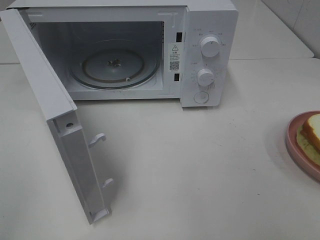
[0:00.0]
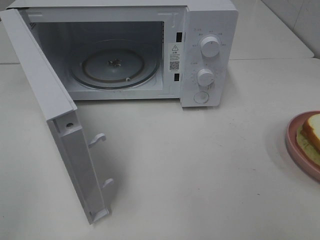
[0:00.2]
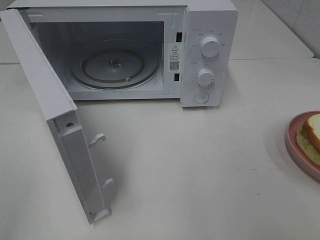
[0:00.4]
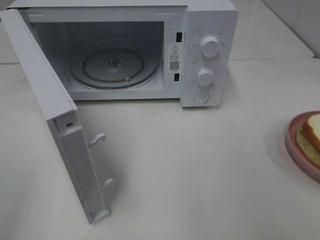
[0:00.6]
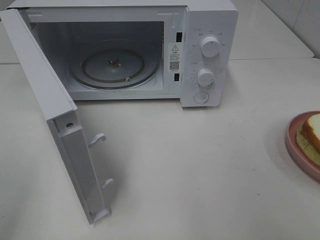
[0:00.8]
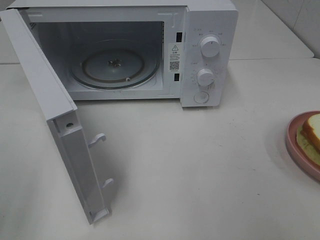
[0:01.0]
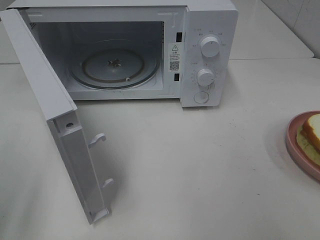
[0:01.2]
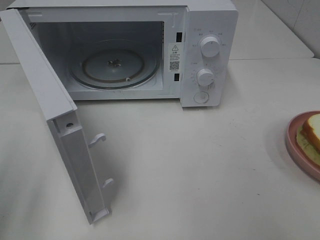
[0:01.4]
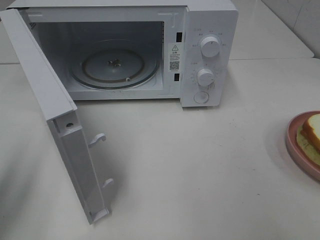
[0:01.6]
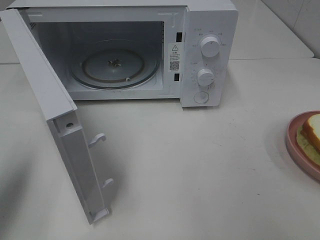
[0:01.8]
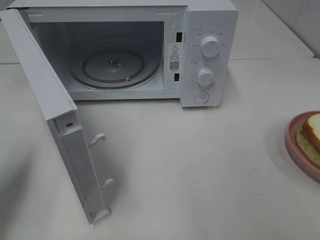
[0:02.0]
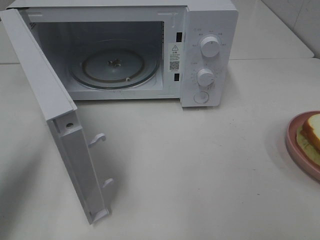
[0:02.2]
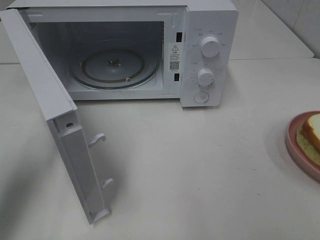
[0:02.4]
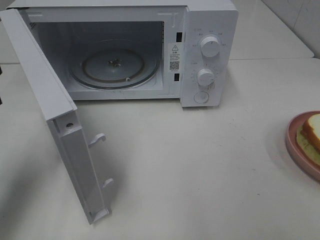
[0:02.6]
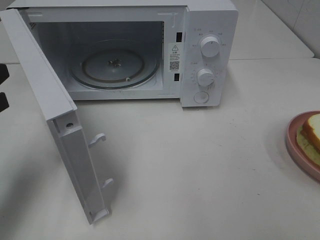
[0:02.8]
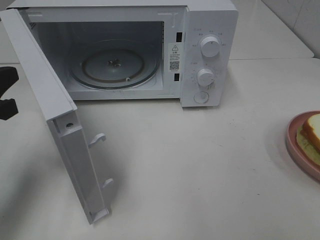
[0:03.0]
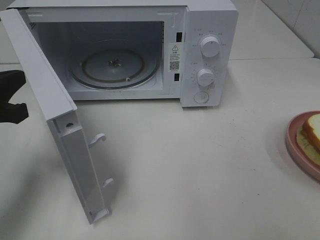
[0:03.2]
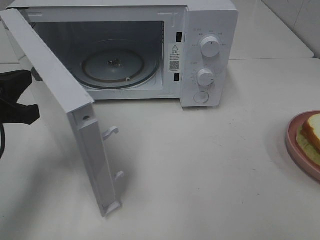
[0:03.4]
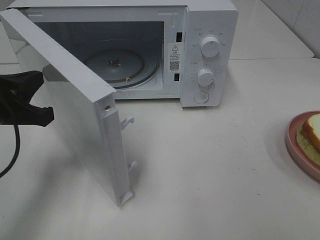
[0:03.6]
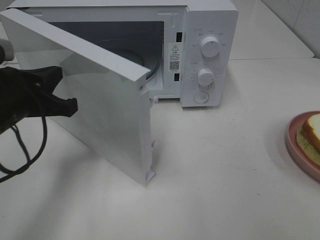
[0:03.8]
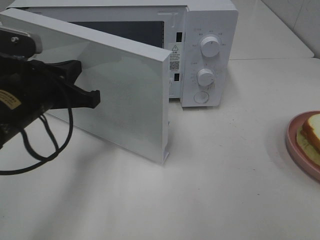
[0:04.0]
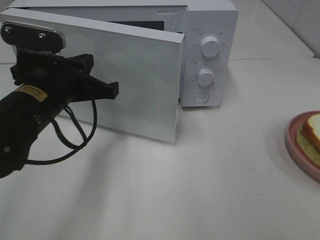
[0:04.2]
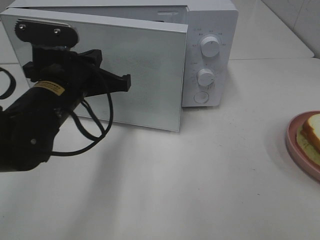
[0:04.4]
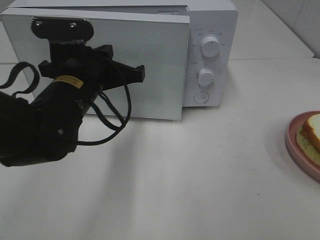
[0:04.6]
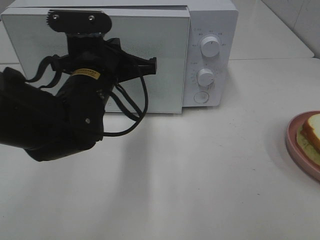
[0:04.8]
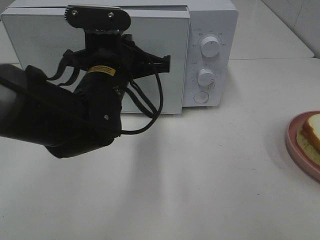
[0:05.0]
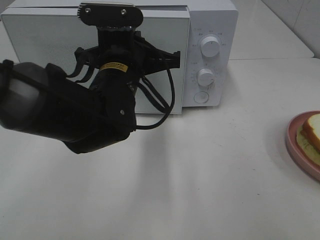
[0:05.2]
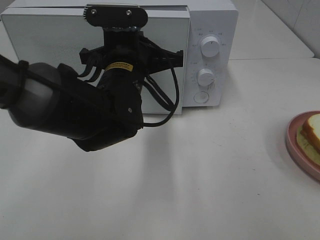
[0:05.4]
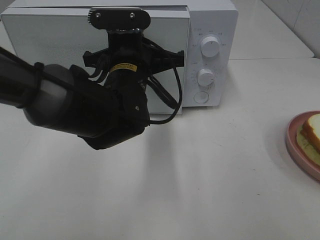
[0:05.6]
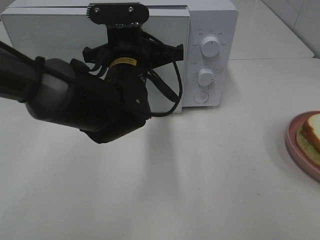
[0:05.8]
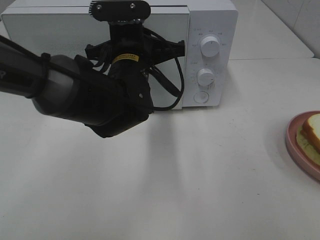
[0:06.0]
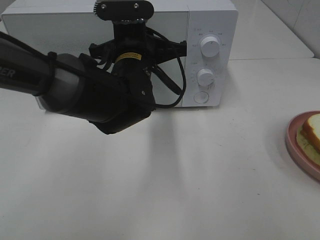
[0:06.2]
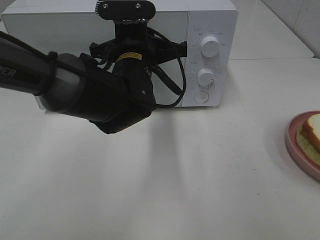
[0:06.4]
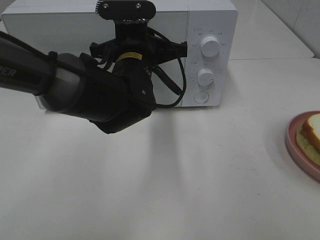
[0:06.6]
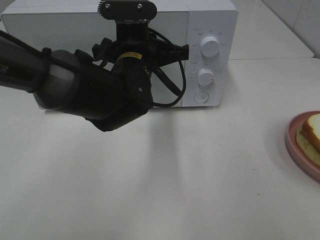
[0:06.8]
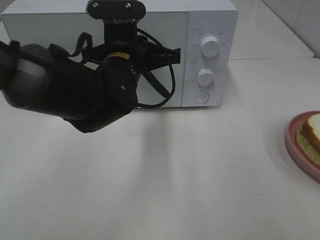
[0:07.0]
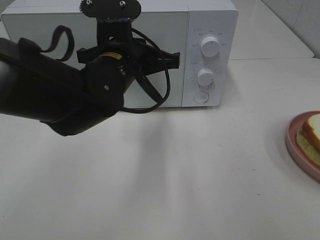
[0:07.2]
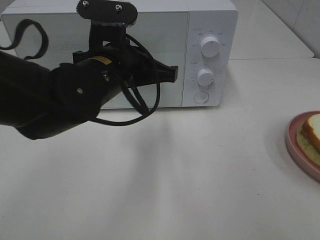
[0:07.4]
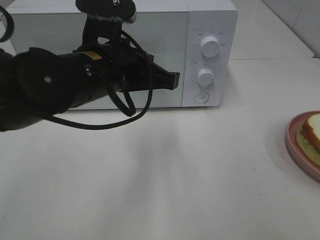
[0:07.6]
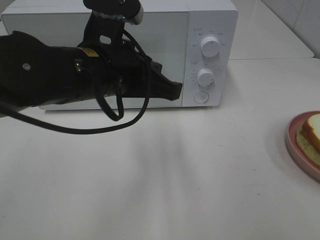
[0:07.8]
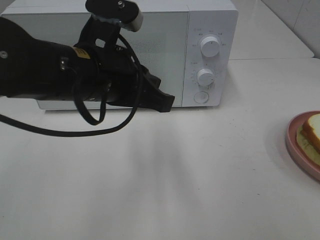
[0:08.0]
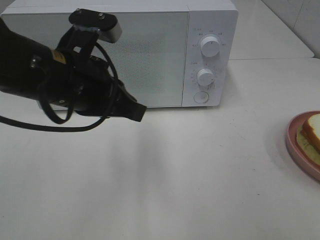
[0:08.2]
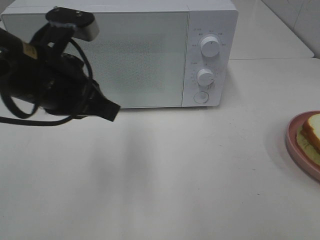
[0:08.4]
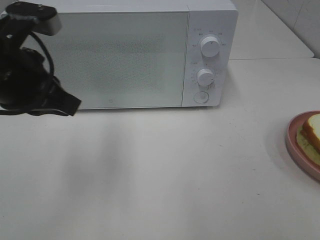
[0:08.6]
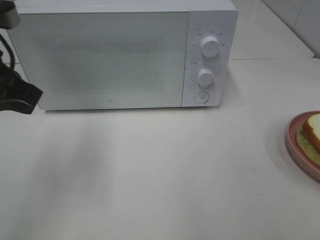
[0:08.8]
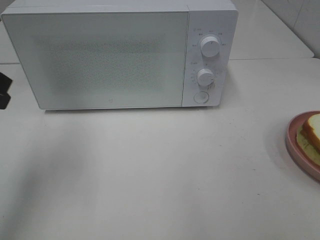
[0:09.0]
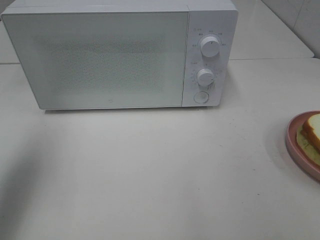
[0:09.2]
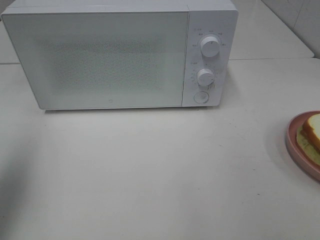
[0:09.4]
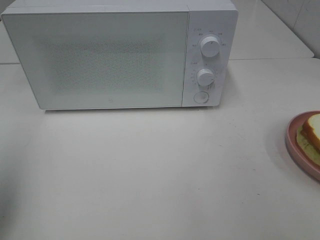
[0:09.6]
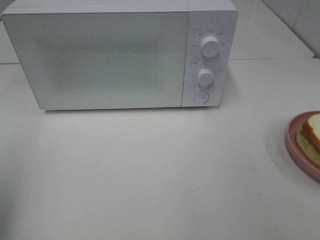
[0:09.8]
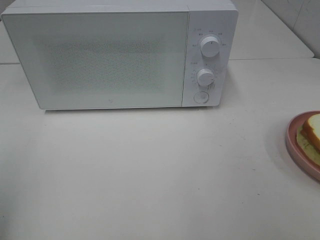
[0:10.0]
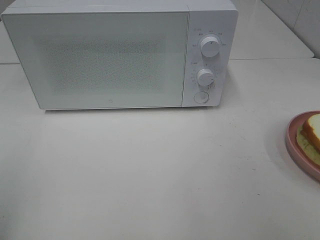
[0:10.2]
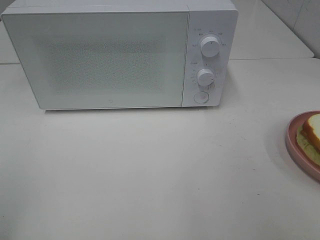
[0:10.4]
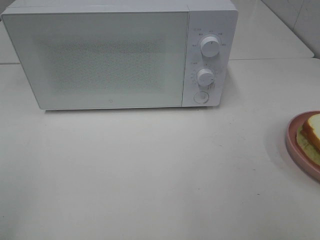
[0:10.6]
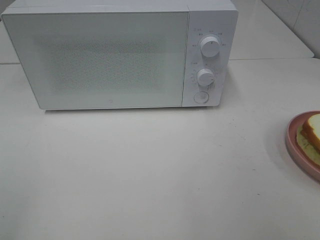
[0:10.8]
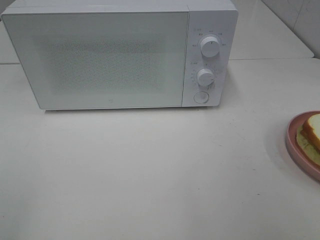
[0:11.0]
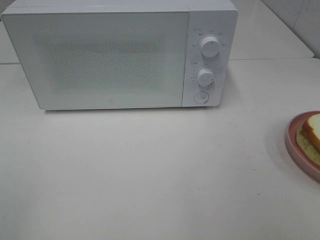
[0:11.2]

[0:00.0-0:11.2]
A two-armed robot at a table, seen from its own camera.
Task of the whole recording: Heat Sandwich.
Step, 0.0 to 7.8 s: Left hand: close the microwave door.
0.0 to 1.6 s: The left gripper travels forward by approximately 15 cm, and closes.
1.6 to 3.2 s: The left gripper travels forward, downward and to the right by some 15 cm, and closes.
3.2 to 4.8 s: The left gripper heads to the right, covering roughly 20 cm.
4.8 to 6.4 s: The left gripper shifts approximately 5 cm forward and to the right.
6.4 to 8.0 s: The left gripper heads backward and upward, covering approximately 10 cm.
8.0 to 9.6 s: The left gripper moves to the left, approximately 25 cm, and opens up.
9.6 to 11.2 s: The left gripper heads backward, covering some 15 cm.

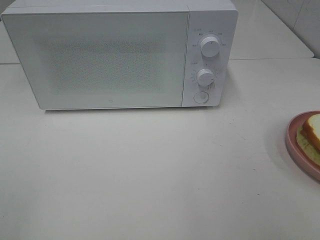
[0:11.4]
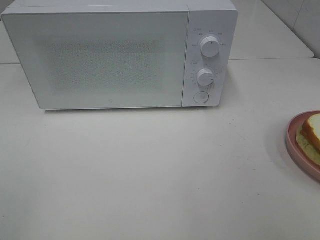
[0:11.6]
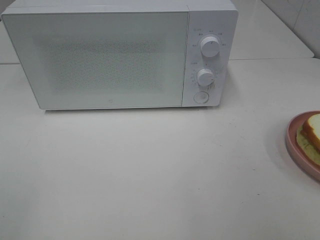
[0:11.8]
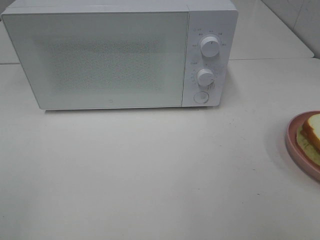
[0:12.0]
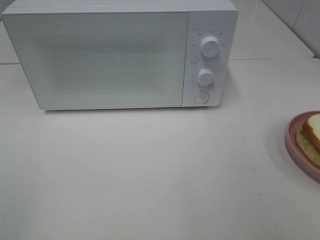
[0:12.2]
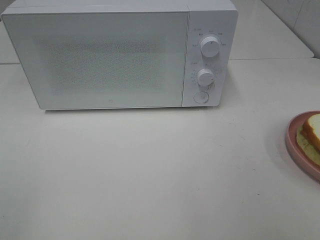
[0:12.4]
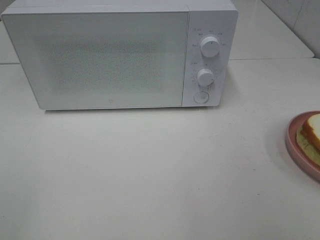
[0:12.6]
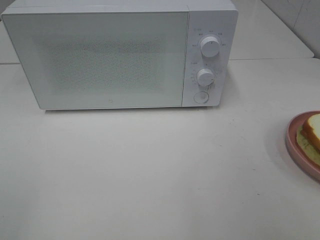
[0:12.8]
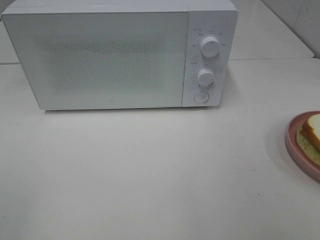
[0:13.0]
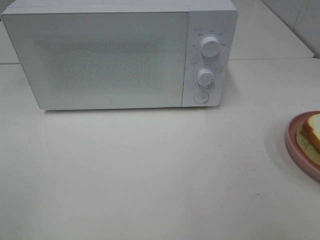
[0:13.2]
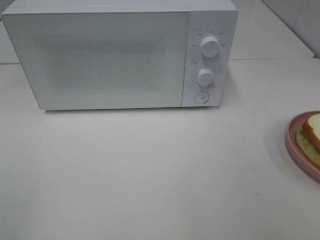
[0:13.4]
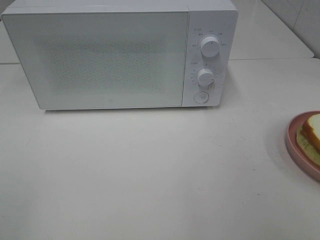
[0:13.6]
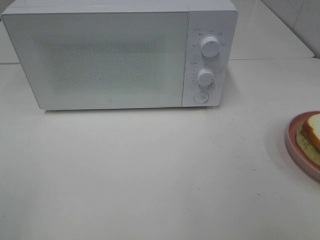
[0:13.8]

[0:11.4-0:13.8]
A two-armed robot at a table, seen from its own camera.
Task of the whole recording: Heat Sandwich.
11.4 to 13.8 s: Both grippers stay about where they are.

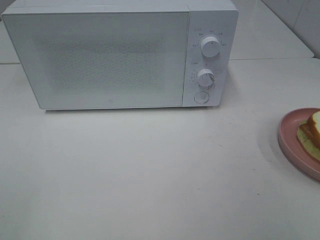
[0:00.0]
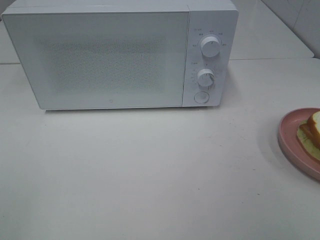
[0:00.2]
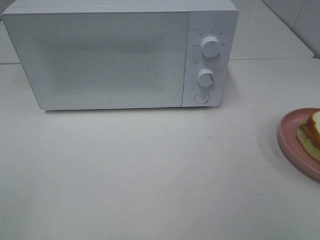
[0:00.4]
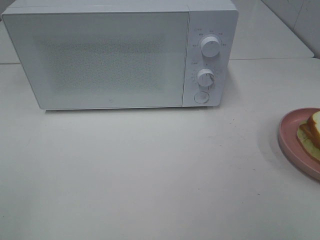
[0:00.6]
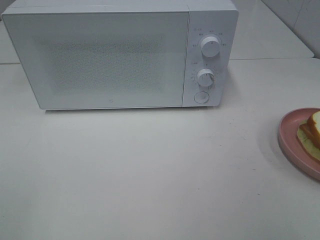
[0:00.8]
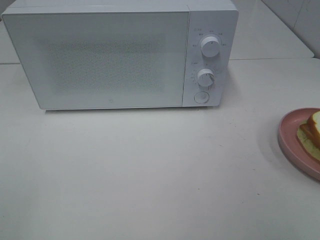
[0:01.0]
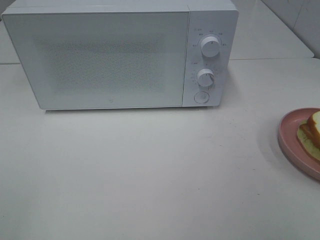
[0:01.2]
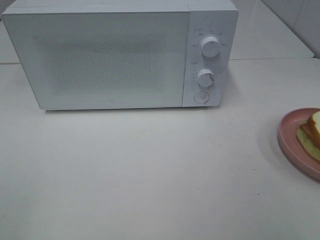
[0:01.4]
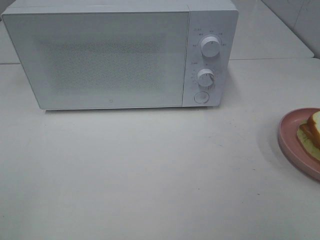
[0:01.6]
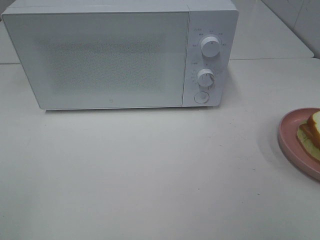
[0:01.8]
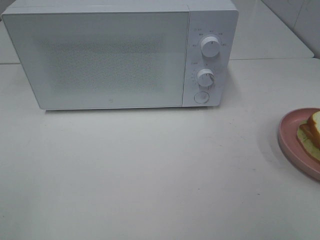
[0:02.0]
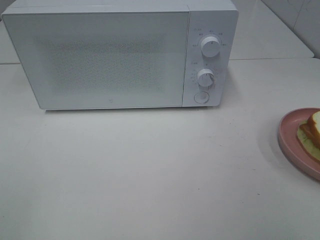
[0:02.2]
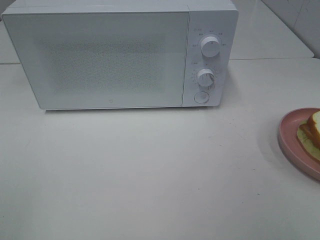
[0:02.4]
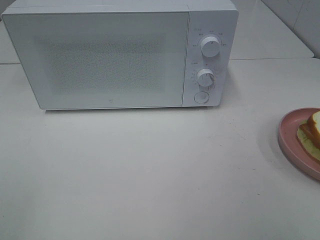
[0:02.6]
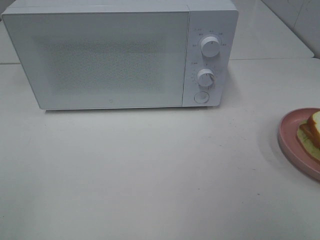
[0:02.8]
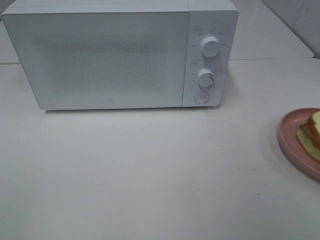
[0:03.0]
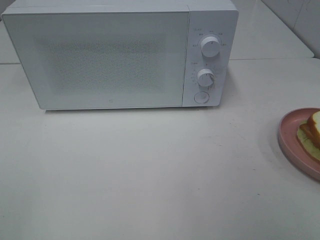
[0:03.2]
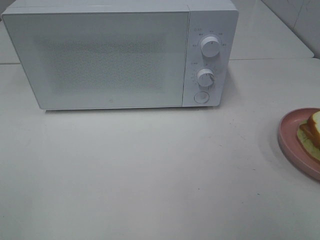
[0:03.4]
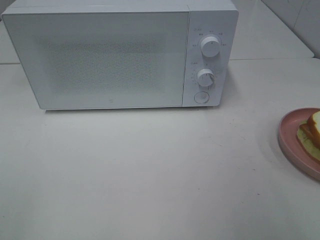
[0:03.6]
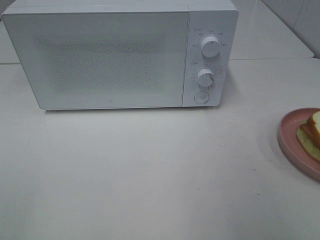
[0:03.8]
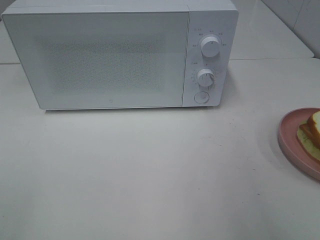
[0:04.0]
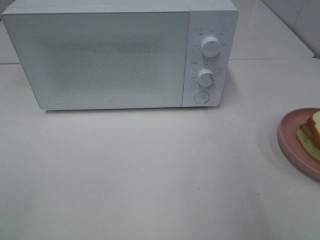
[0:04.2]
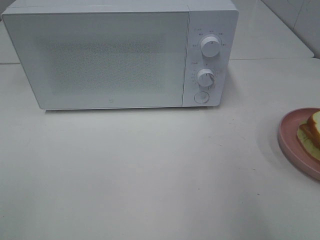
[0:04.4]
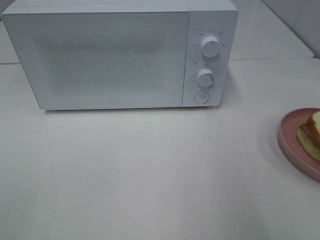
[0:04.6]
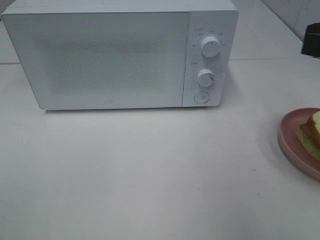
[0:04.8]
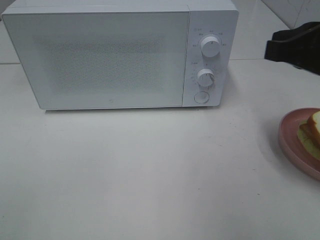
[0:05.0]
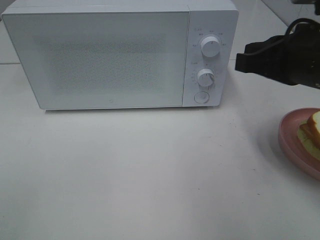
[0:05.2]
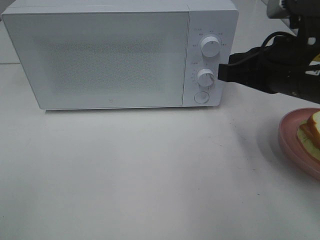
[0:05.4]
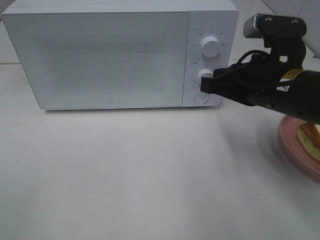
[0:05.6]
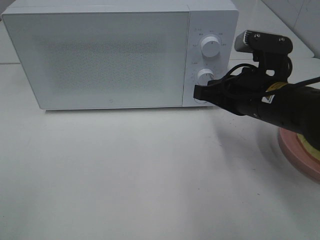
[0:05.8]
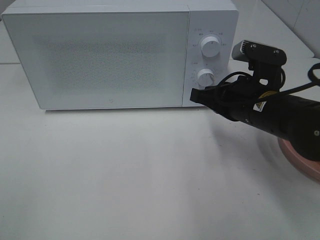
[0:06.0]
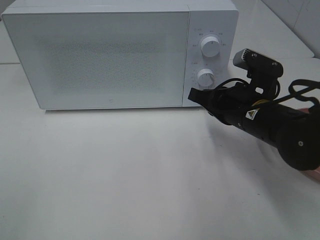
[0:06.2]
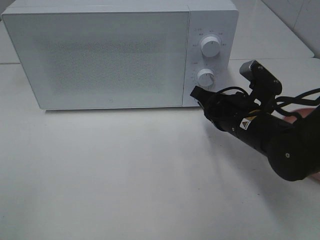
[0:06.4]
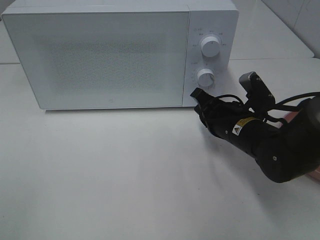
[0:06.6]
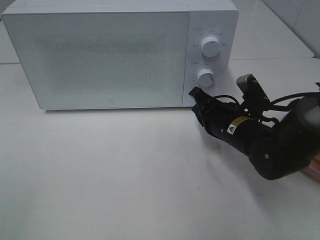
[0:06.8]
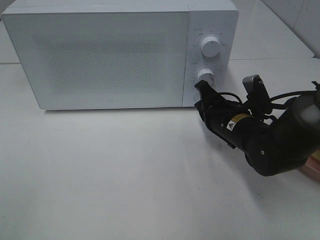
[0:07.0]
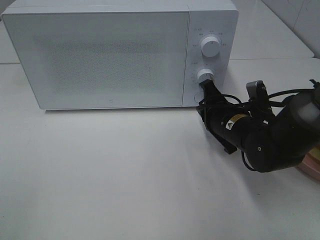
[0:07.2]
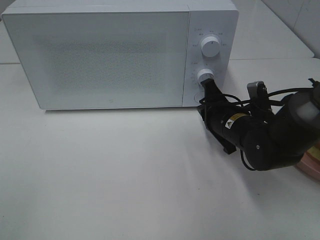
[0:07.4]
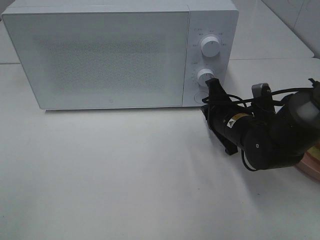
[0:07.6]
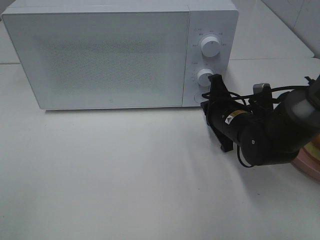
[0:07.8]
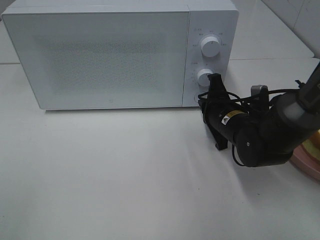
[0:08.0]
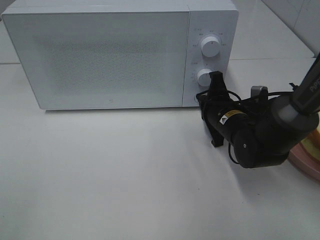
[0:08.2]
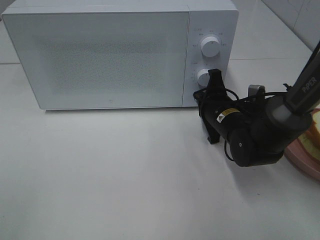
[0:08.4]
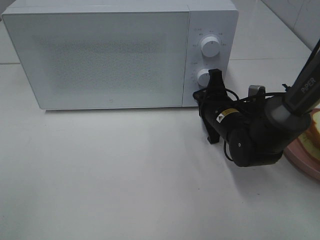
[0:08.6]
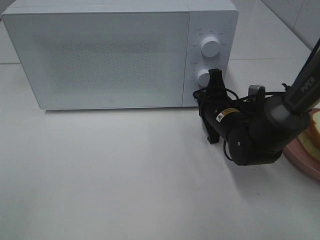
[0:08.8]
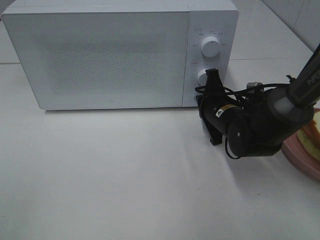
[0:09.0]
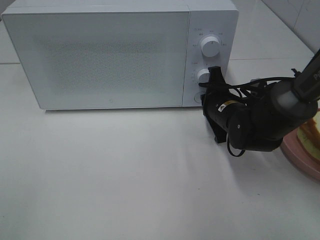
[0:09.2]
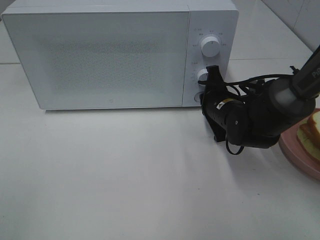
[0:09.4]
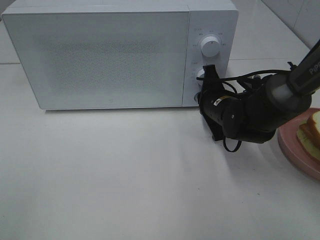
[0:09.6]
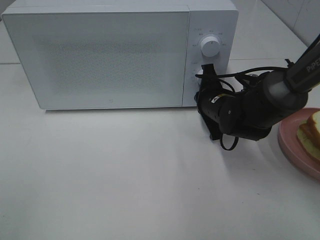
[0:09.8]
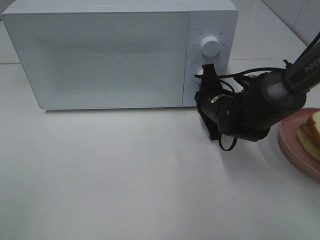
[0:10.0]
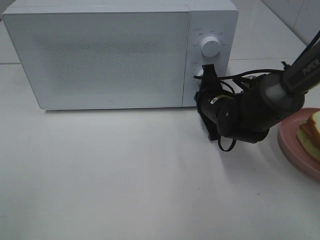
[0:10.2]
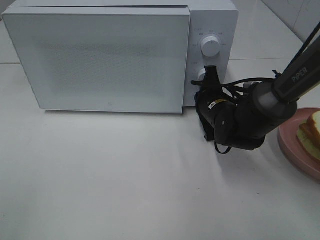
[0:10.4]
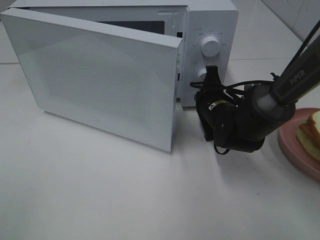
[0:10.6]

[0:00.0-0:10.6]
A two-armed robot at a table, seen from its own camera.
Task of the whole recording: Heat Sandwich.
0.0 to 1.6 s: The two grippers keep their place.
4.6 to 6.0 s: The right gripper heads downward, forward and to the left, covering about 20 cm.
6.0 to 7.6 s: The right gripper heads downward, covering approximately 10 cm.
7.6 to 10.6 s: The grippers stay close to where they were, moving slightly.
